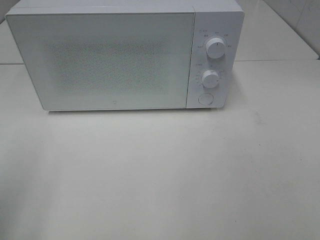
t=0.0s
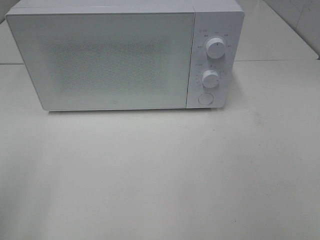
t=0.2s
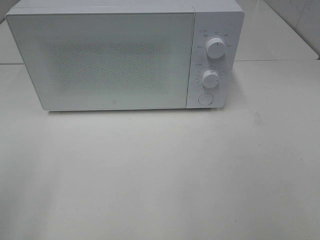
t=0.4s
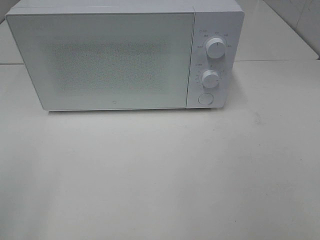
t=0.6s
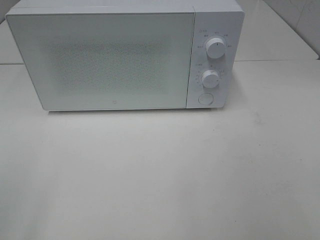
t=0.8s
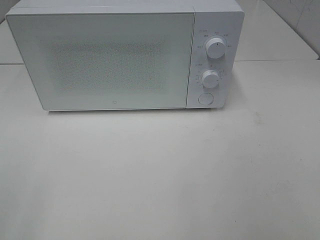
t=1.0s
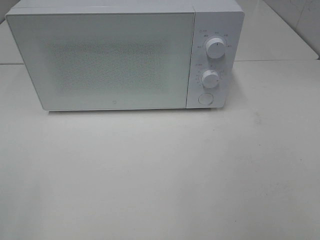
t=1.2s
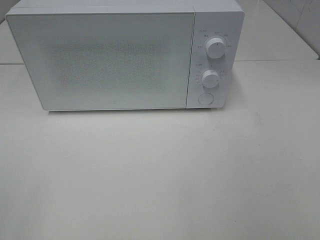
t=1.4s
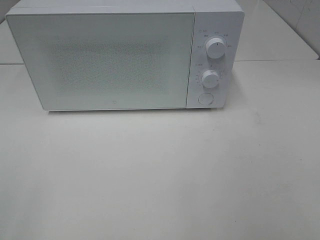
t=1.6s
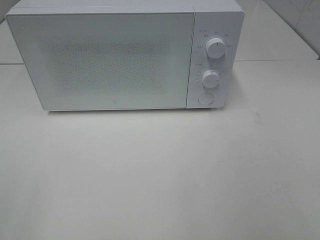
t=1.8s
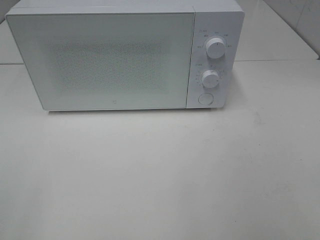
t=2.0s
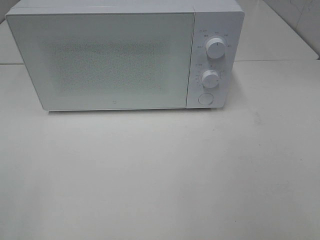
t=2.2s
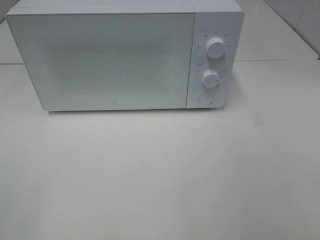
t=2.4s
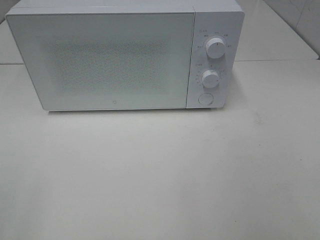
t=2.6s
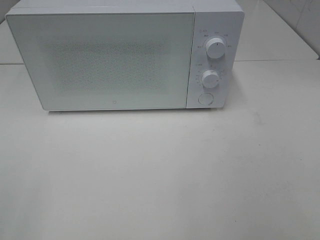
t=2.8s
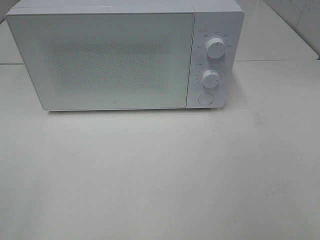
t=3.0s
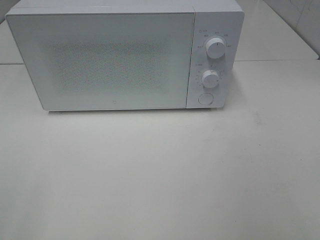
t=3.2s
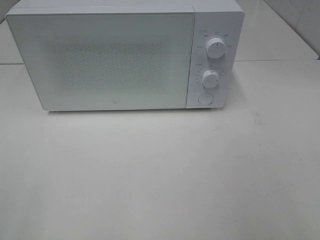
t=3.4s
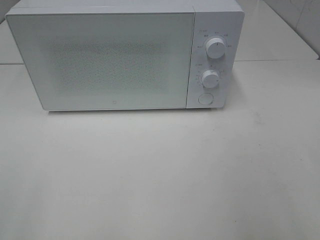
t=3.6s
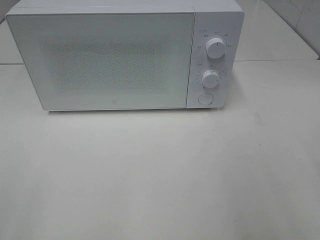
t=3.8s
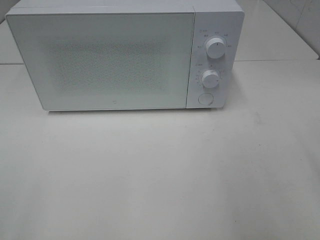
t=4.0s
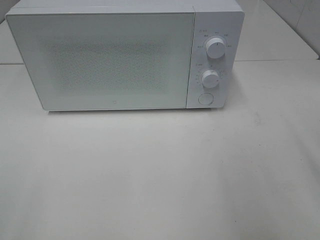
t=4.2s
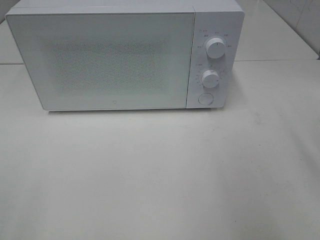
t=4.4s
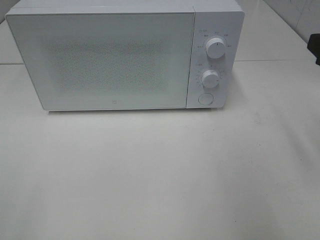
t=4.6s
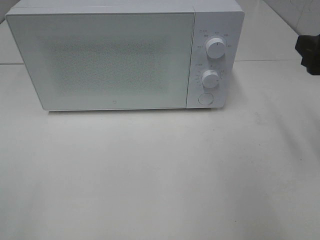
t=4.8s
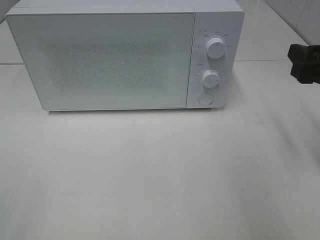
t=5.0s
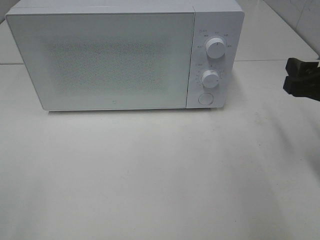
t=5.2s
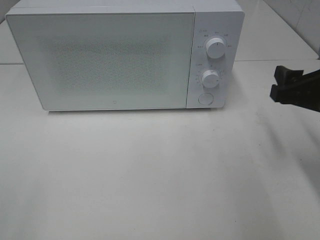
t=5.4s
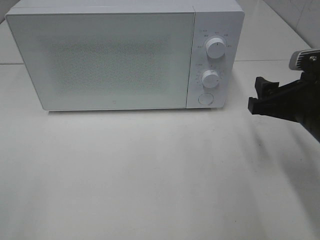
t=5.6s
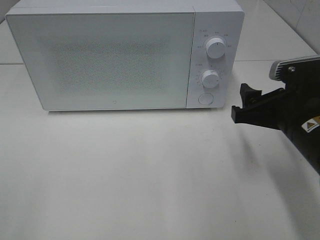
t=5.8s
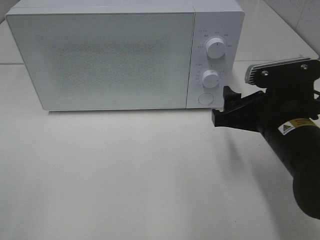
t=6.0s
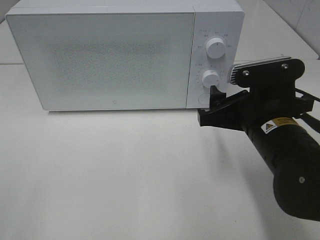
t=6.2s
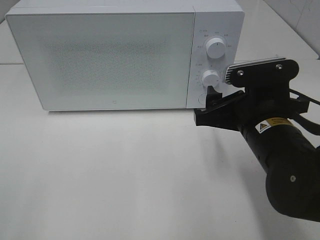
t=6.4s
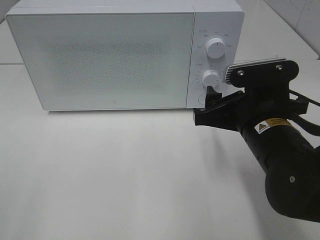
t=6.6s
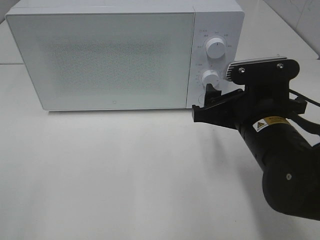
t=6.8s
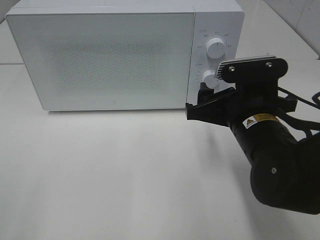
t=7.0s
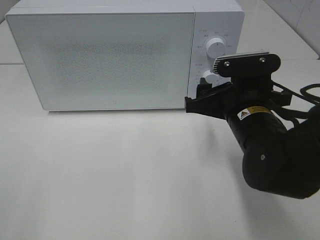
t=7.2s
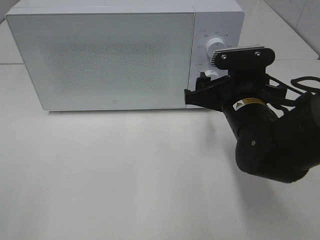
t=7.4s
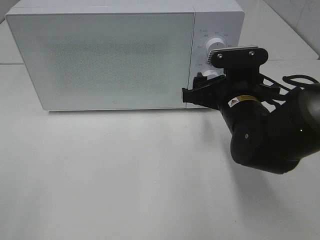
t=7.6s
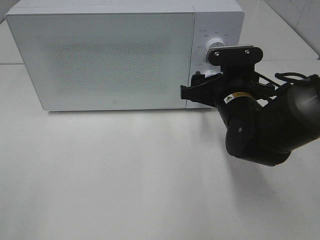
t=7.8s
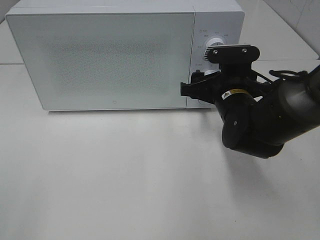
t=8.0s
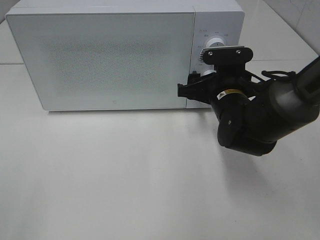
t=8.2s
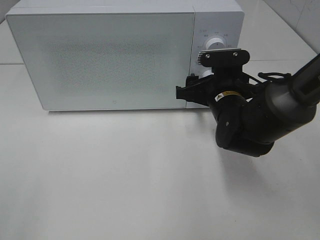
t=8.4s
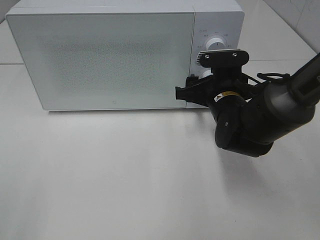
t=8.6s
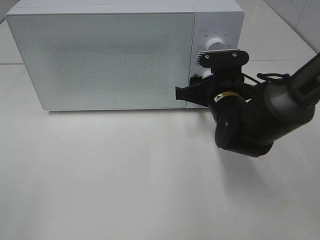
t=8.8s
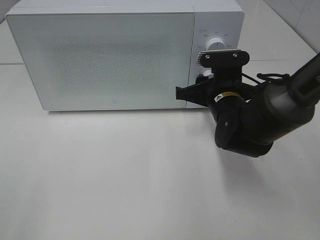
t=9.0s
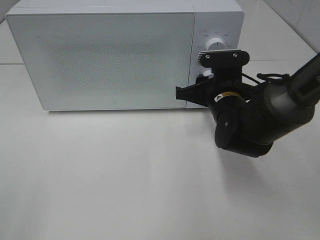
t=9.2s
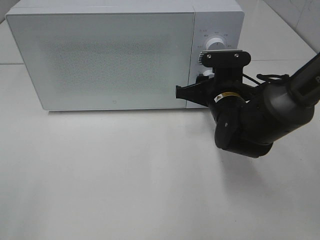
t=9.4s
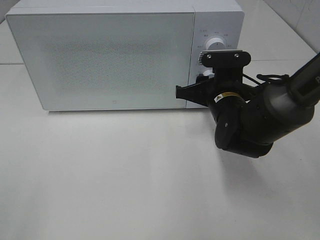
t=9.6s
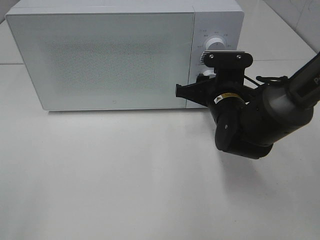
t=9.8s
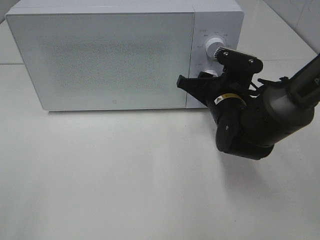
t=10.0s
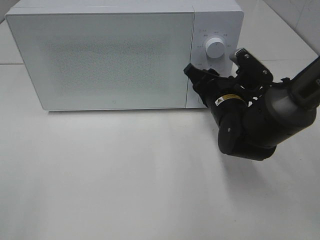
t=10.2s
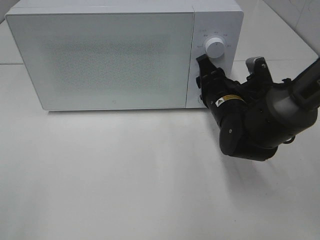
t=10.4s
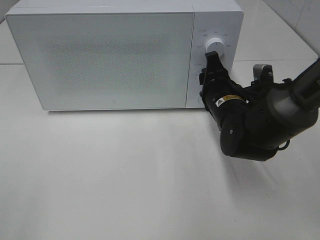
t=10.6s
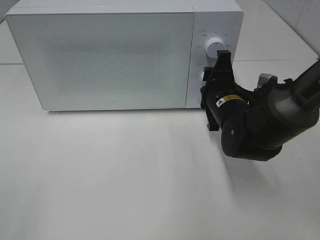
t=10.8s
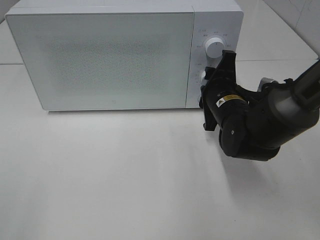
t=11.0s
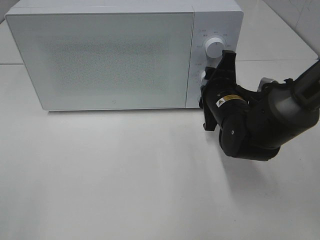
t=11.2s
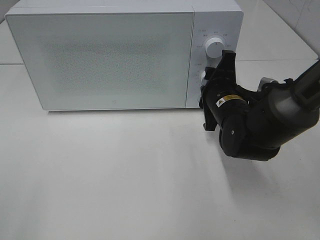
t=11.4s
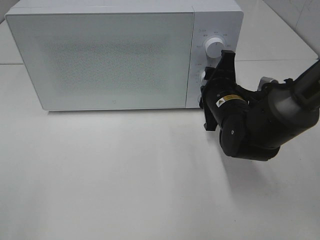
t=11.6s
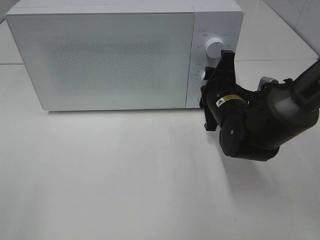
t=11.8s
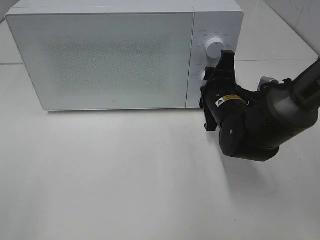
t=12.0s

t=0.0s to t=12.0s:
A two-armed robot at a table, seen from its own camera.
Task of the whole recording: Heat the burger.
t=1.6s to t=3.0s: Both grippers stay put.
t=4.4s to t=6.0s: The right gripper travels downward and to the left by about 15 cm.
t=6.0s to t=7.6s: The right gripper travels forward by approximately 5 cm.
t=7.6s to t=9.0s: The right gripper ends up about 5 cm from where it was, and closes.

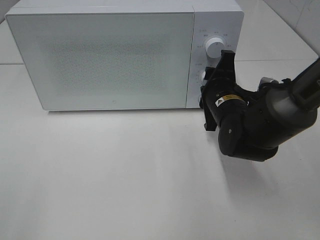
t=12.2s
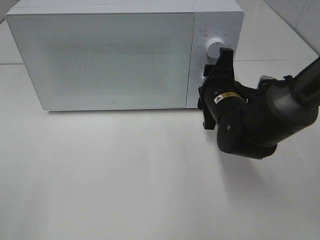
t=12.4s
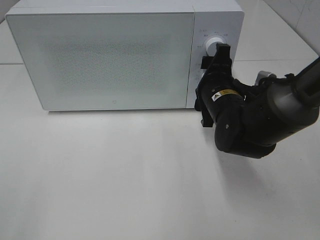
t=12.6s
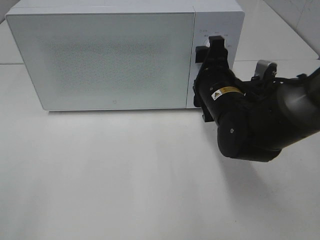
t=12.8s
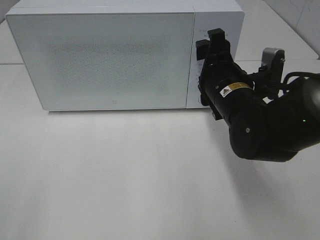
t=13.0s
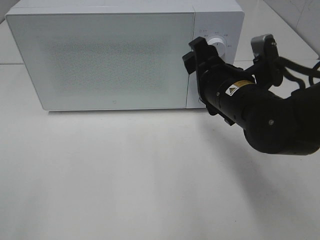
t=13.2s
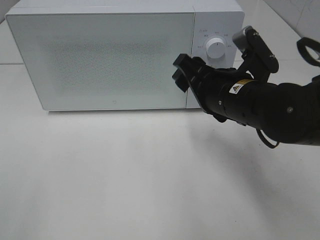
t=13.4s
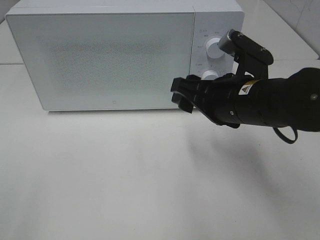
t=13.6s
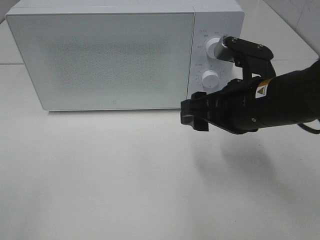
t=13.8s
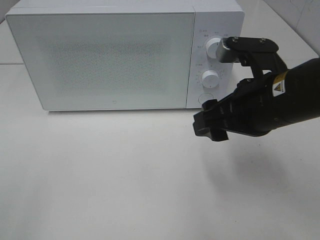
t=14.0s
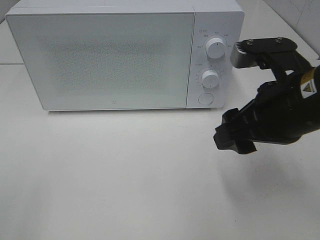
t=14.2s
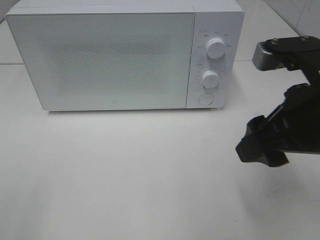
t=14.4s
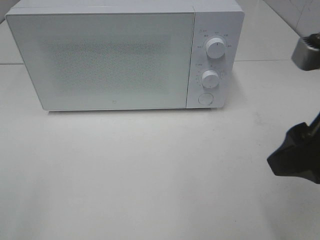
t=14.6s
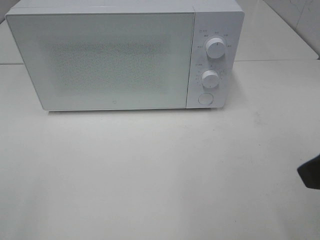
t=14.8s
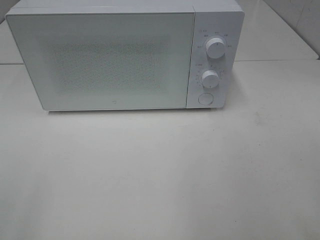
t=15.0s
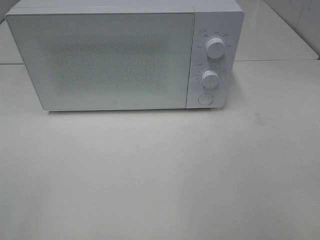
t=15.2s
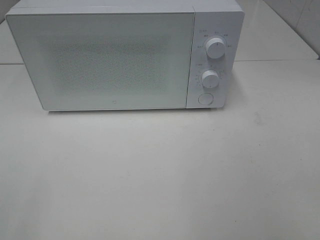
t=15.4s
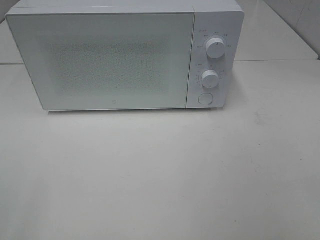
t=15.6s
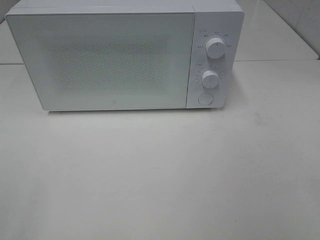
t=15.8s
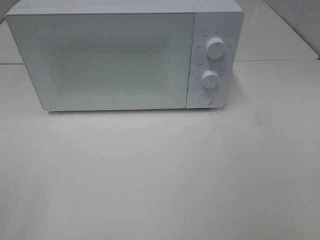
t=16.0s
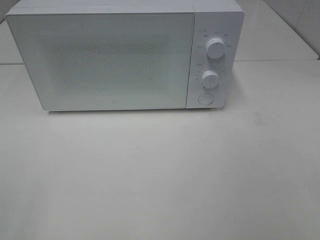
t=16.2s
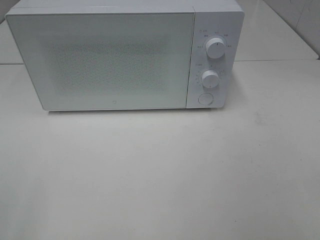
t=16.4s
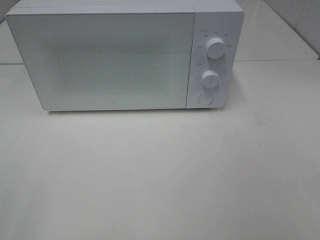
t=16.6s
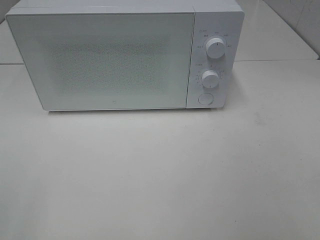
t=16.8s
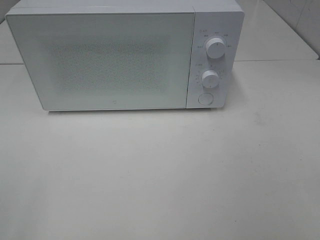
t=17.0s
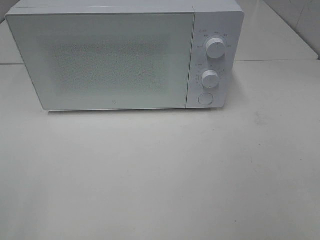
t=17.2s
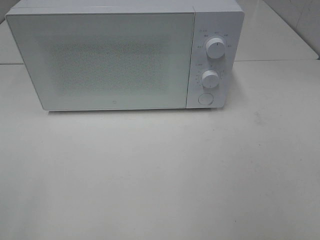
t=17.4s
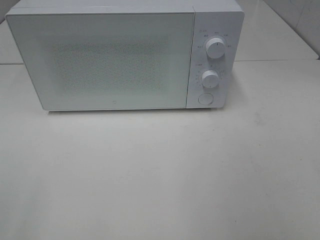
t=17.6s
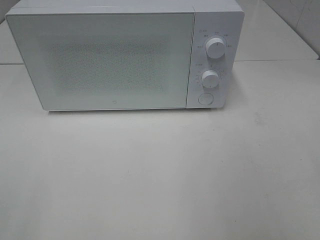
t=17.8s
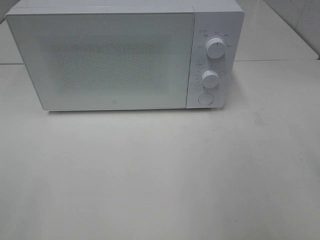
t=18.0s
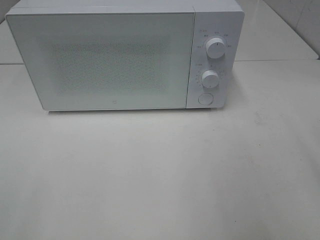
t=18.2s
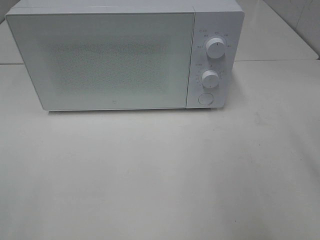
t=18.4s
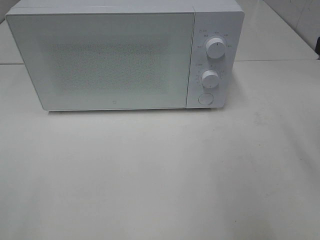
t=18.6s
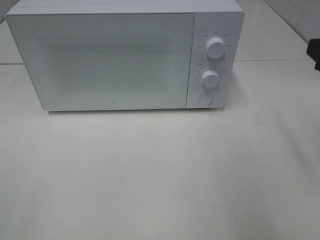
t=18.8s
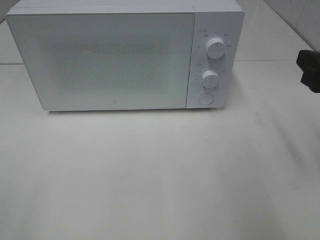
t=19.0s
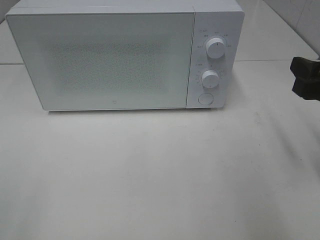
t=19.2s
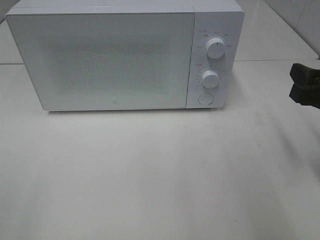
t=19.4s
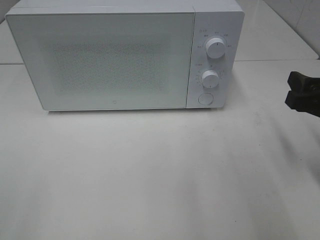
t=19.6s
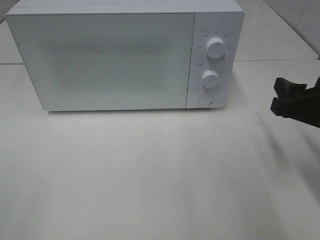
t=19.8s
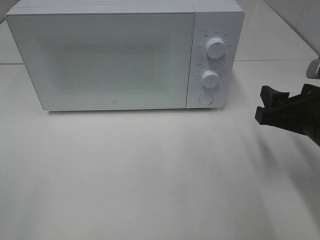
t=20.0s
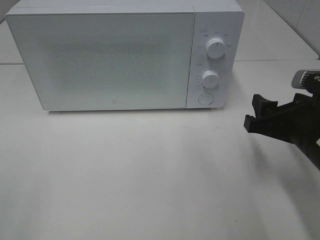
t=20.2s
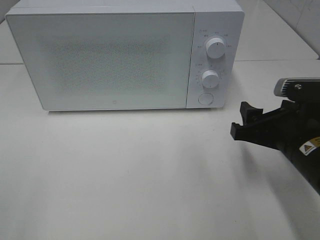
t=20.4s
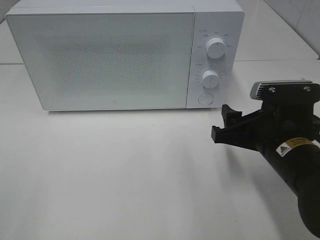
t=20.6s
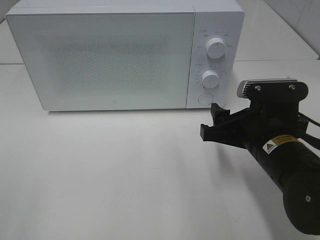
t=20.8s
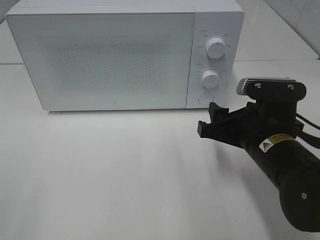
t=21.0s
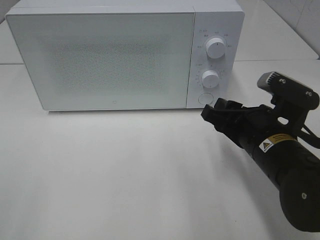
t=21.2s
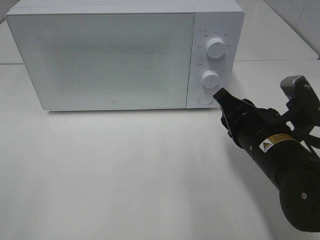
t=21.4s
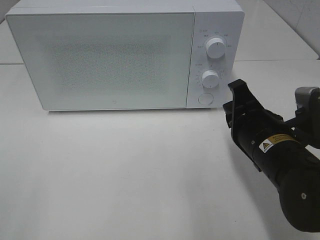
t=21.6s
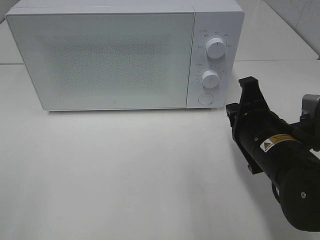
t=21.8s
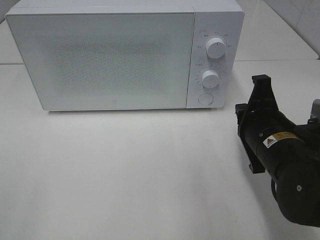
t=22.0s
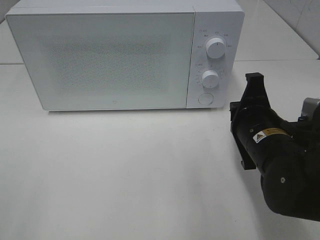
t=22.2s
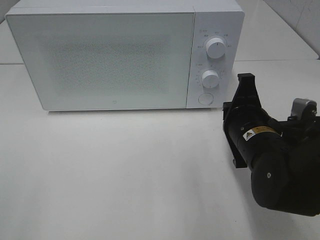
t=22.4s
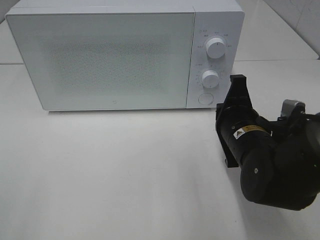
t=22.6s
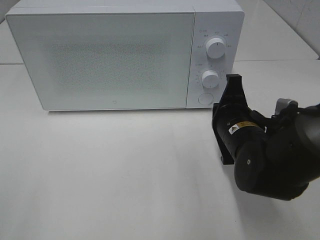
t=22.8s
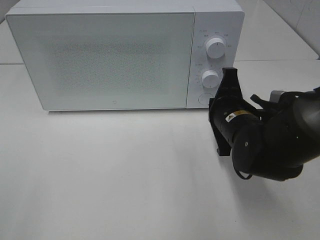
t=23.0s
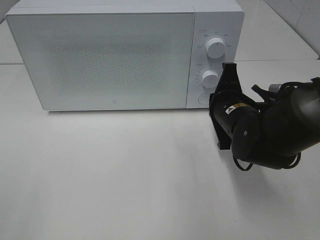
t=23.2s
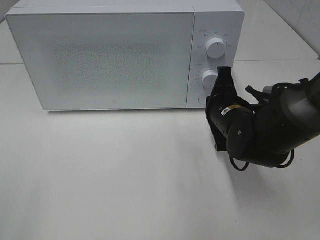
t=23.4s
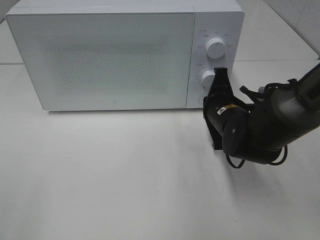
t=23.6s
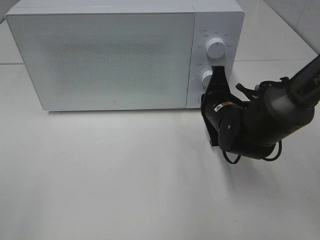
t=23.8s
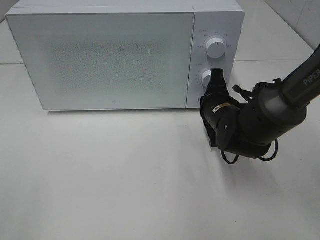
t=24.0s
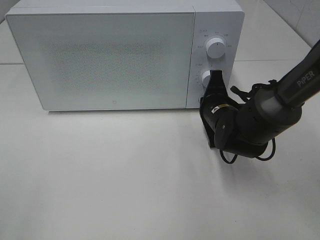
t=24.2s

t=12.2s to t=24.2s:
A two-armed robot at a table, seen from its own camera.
Task of the whole recording: Heat the burger.
t=12.2s to t=13.8s: The right gripper heads backward and upward, covering about 10 cm.
t=13.8s to t=15.2s: The right gripper heads backward, to the right and upward, covering some 25 cm.
t=18.2s to t=19.8s: The right gripper goes some 15 cm downward and forward.
t=19.8s to t=21.2s: The right gripper goes roughly 10 cm to the left.
t=21.2s to t=22.6s: The right gripper closes up.
t=22.6s to t=24.2s: The right gripper heads forward, covering some 10 cm.
